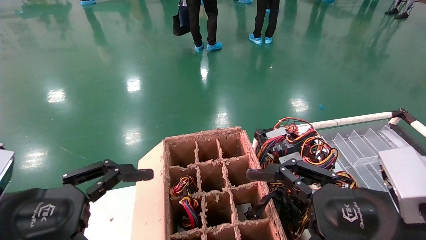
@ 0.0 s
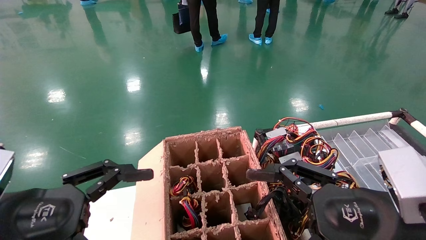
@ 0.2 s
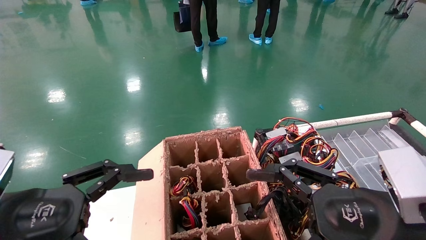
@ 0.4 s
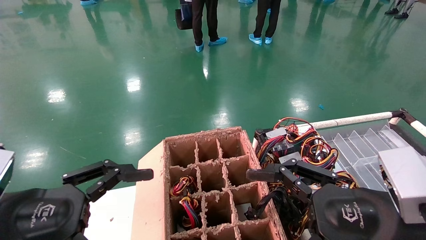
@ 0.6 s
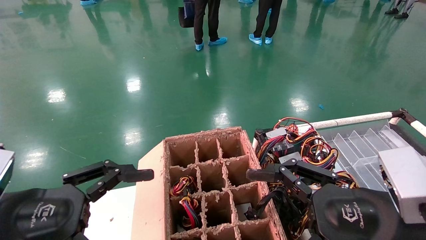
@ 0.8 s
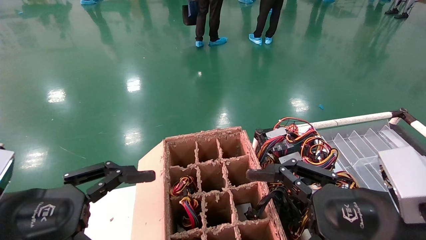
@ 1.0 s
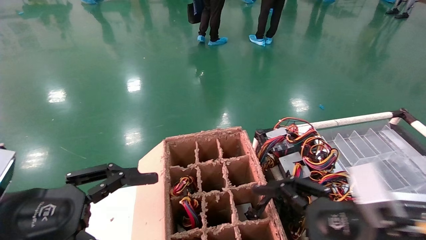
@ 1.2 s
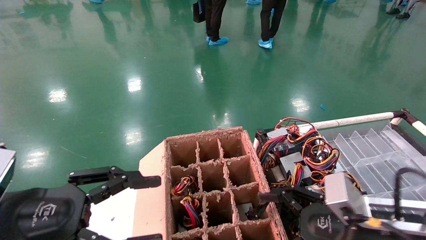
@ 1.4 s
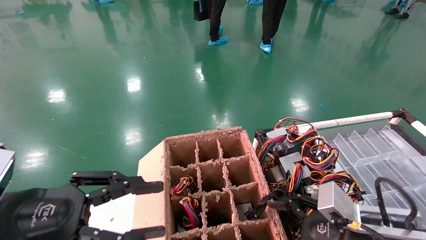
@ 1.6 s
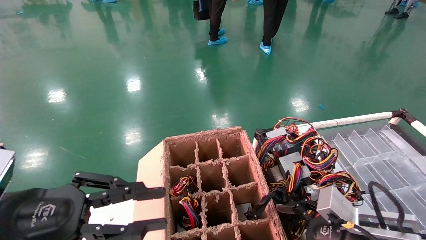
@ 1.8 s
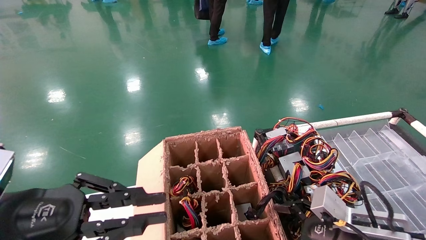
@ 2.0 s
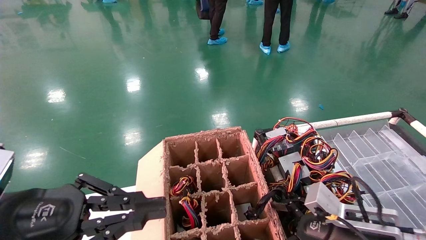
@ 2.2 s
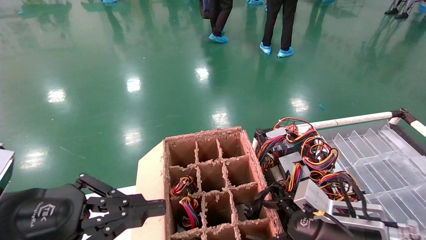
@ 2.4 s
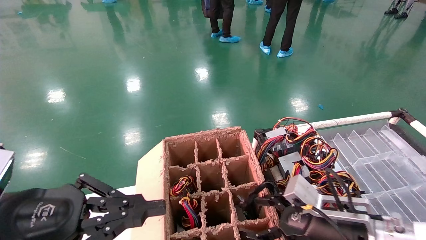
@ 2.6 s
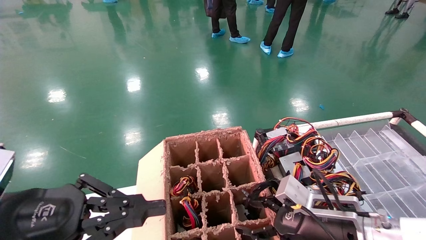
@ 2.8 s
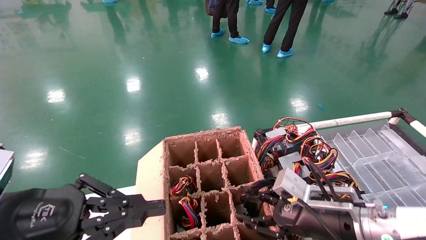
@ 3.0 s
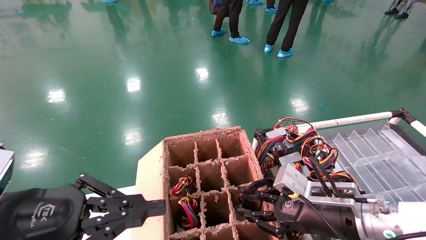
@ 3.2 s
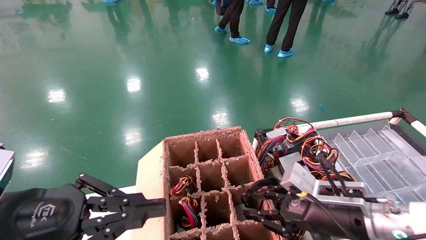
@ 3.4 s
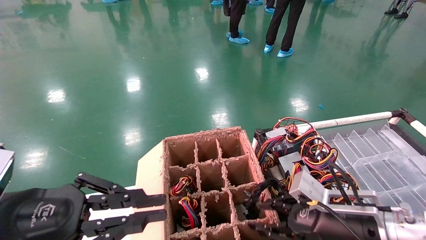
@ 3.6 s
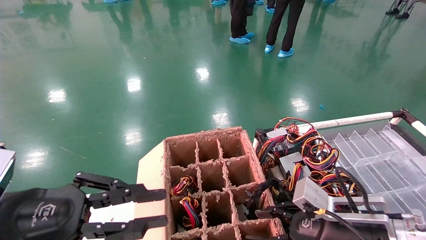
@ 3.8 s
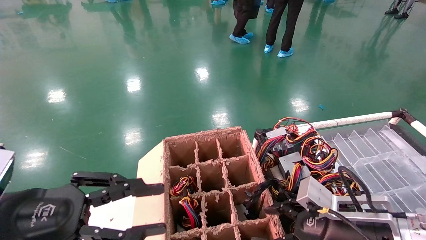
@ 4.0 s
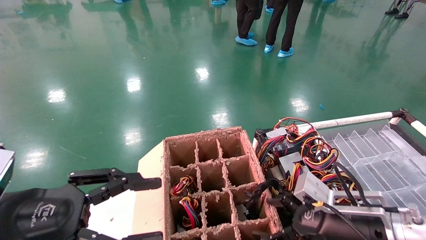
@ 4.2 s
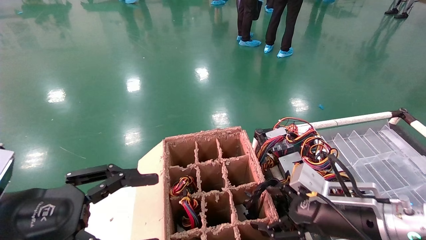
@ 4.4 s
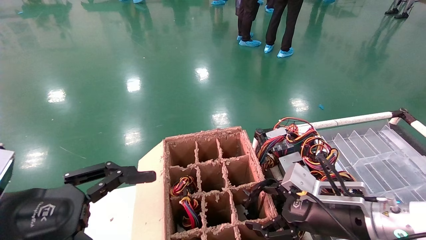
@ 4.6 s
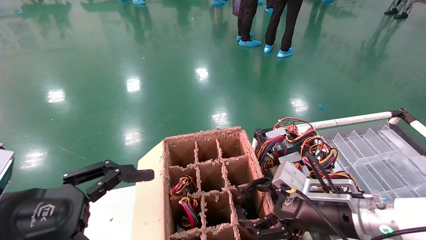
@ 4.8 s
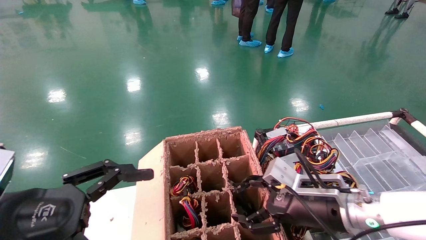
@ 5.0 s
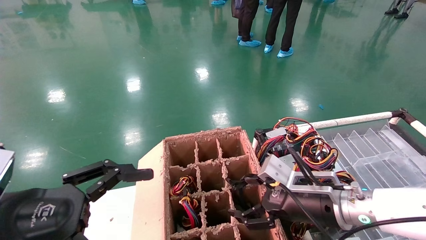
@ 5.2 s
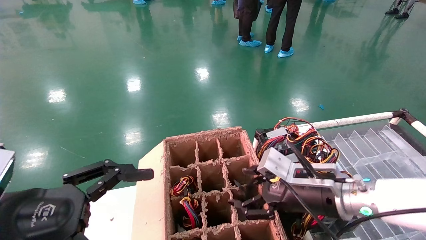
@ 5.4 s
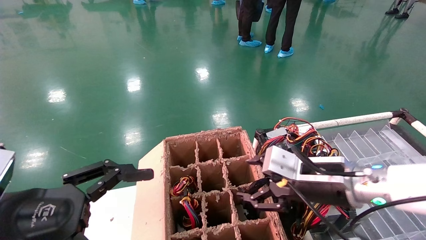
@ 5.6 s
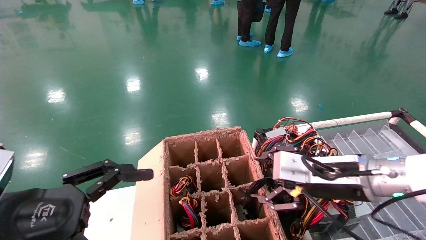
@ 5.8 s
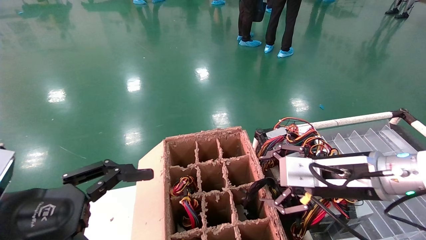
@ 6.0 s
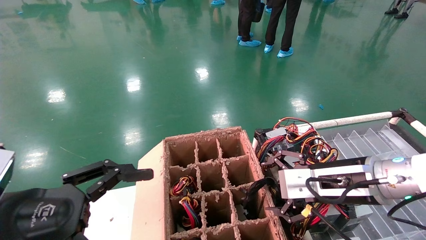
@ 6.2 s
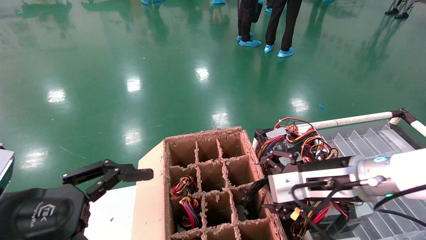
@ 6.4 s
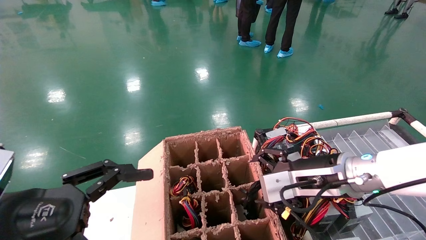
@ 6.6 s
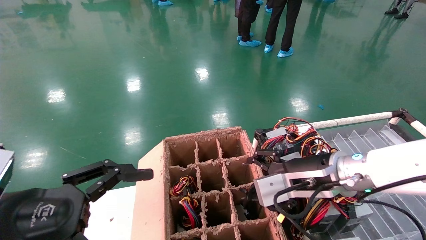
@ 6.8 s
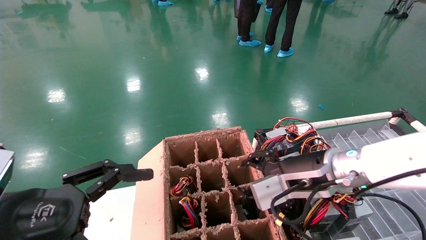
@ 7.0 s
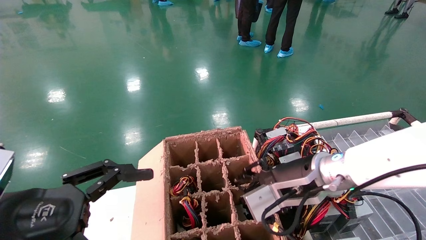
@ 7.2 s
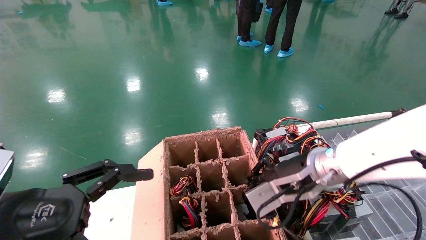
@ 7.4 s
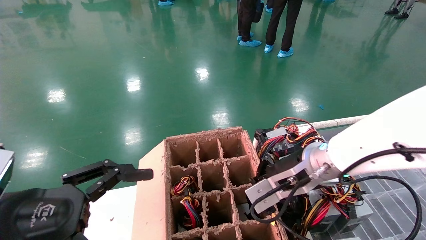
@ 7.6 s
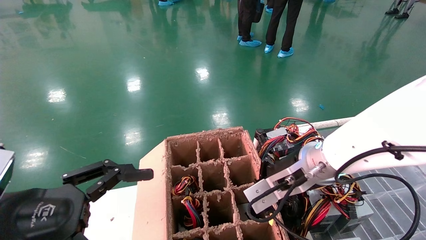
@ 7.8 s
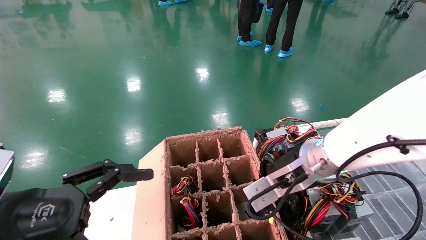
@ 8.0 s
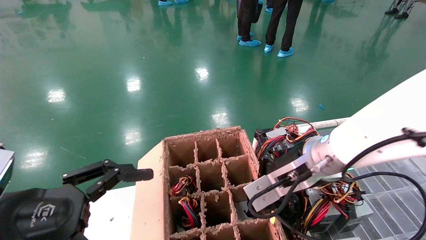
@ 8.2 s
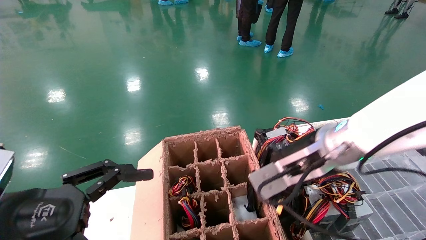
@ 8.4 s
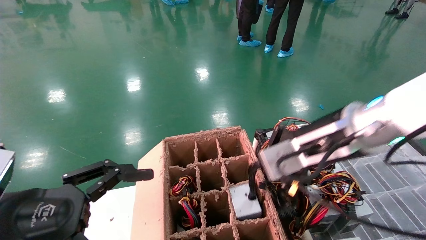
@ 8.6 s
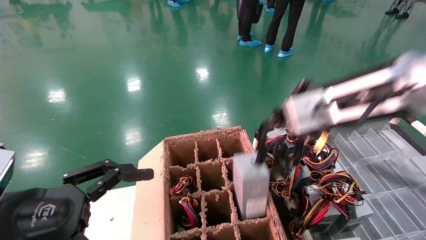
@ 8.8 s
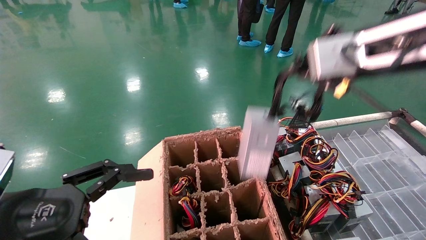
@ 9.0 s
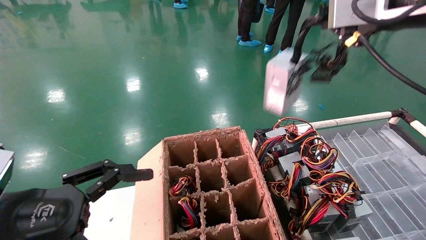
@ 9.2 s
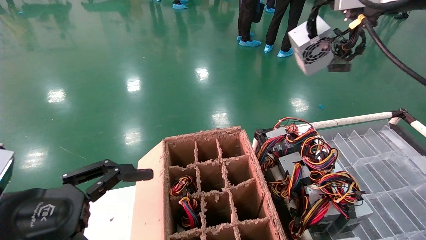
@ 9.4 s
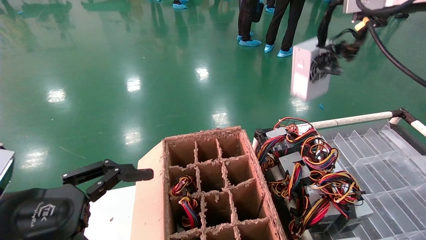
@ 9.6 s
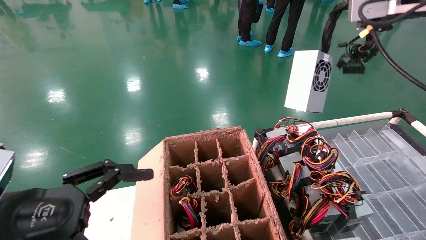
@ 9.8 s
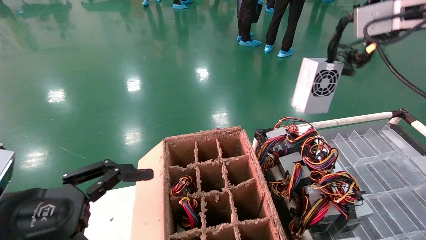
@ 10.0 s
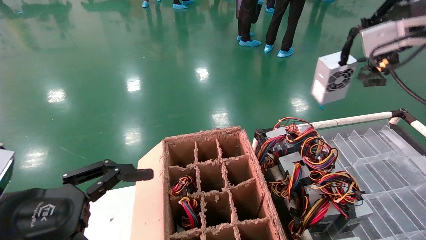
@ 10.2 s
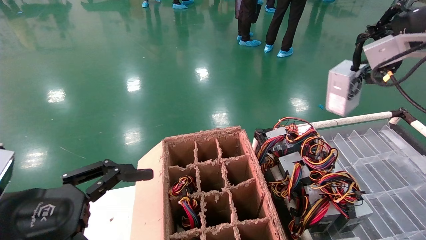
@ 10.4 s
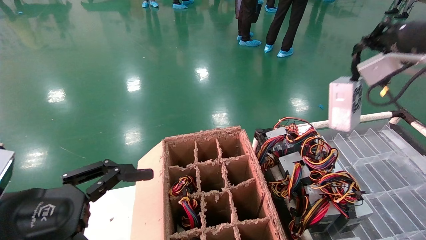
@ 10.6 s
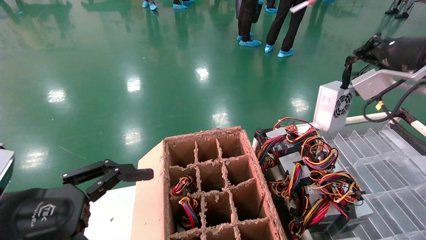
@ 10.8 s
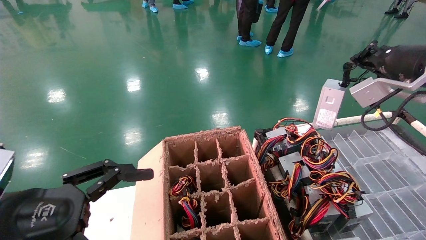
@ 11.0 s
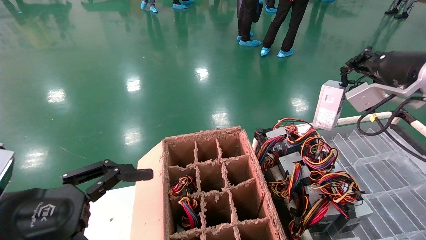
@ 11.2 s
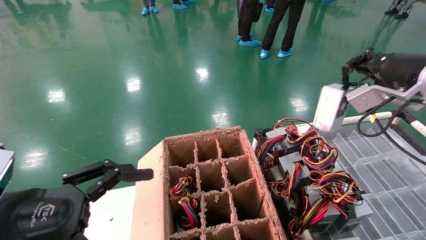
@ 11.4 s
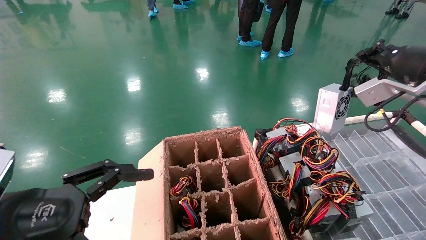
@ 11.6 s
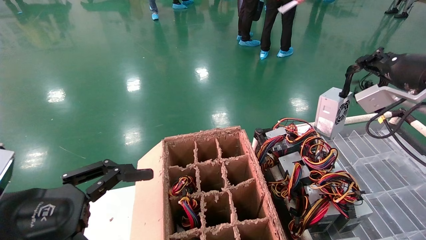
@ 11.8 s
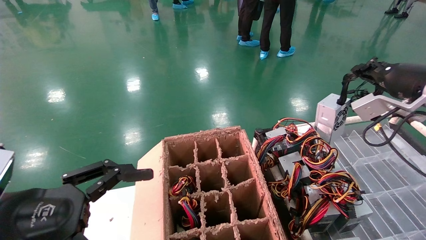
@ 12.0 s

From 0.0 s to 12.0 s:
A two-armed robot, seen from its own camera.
Step, from 1.2 s to 8.0 s: Grab and lift the power supply from the large box.
From 0.0 s to 1.6 s: The left gripper closes its fingers. The right gripper shifts approximately 10 cm downward and forward.
From 1.6 s to 3.0 s: The left gripper closes its fingers. Meanwhile the right gripper travels forward by roughly 5 cm, and closes its fingers.
From 3.0 s to 4.4 s: The left gripper opens its fingers.
From 4.4 s to 6.0 s: The right gripper heads upward, covering roughly 5 cm; the left gripper opens.
From 6.0 s to 7.6 s: The right gripper shifts roughly 5 cm to the left, and closes its fingers.
From 7.6 s to 9.0 s: The right gripper goes approximately 20 cm upward and to the right.
From 9.0 s to 10.4 s: The right gripper shifts some 15 cm to the right and forward.
From 10.4 s to 12.0 s: The right gripper travels downward by some 10 cm.

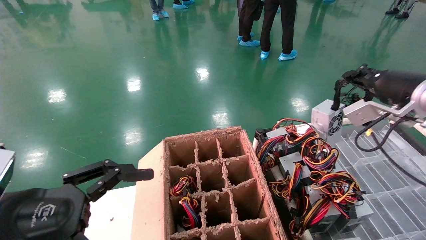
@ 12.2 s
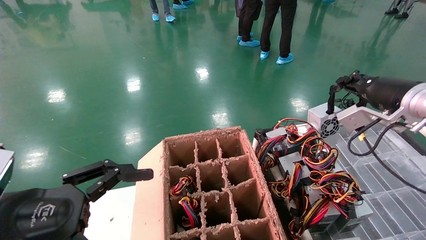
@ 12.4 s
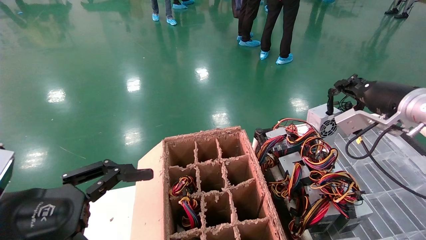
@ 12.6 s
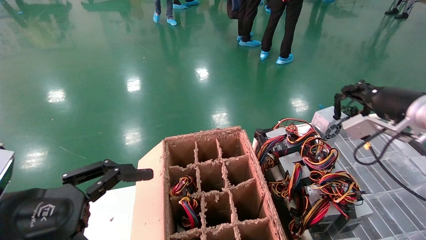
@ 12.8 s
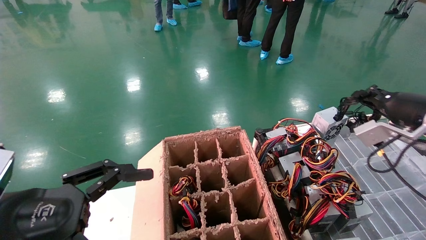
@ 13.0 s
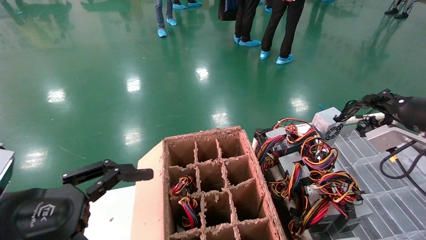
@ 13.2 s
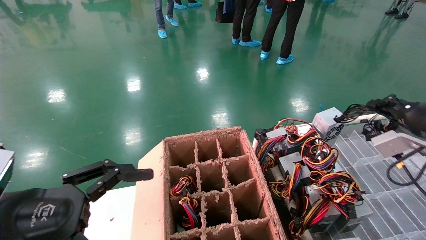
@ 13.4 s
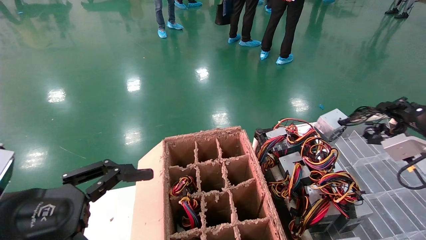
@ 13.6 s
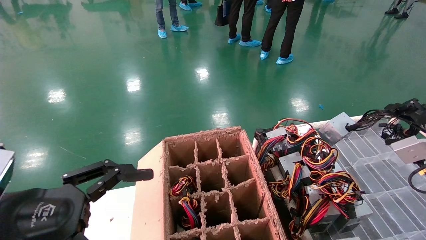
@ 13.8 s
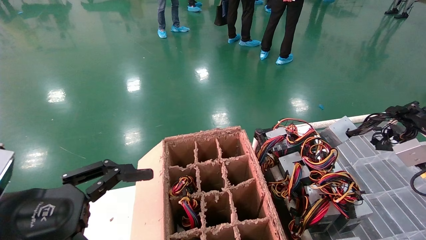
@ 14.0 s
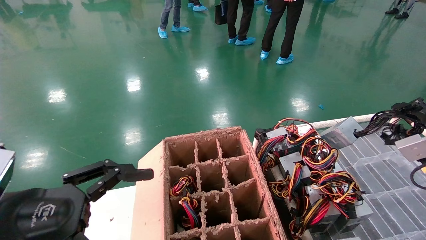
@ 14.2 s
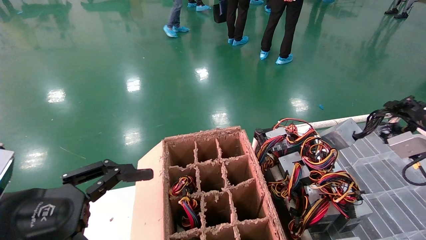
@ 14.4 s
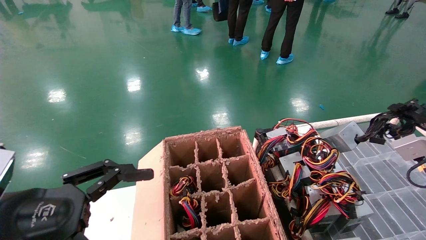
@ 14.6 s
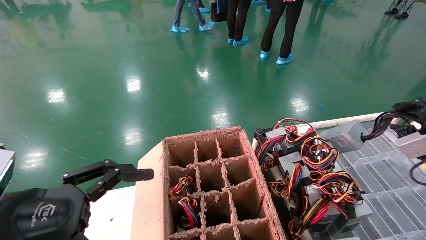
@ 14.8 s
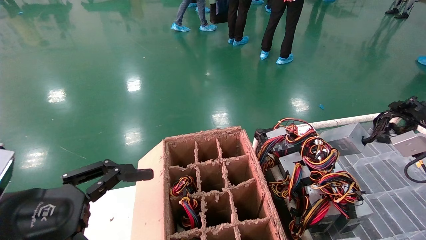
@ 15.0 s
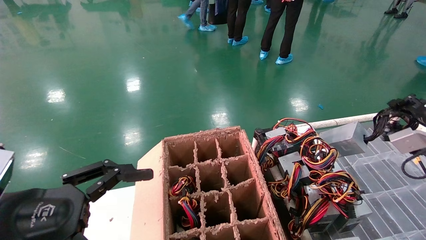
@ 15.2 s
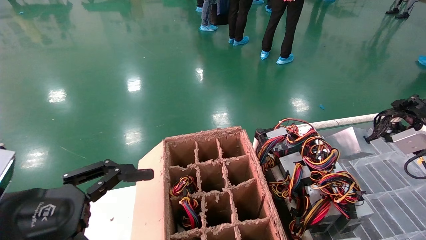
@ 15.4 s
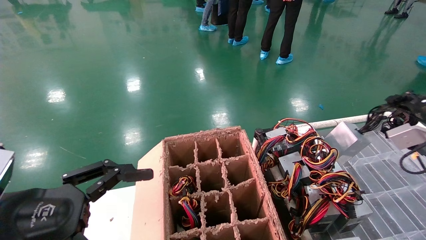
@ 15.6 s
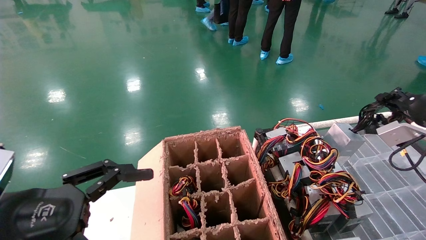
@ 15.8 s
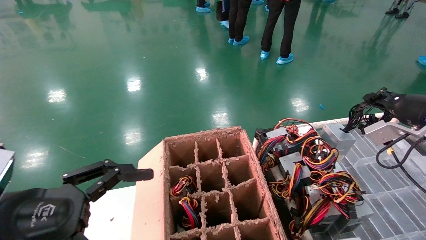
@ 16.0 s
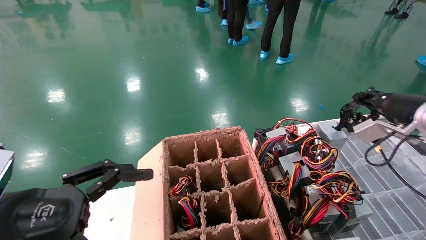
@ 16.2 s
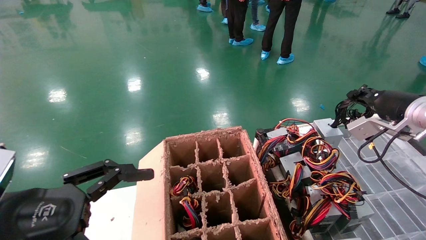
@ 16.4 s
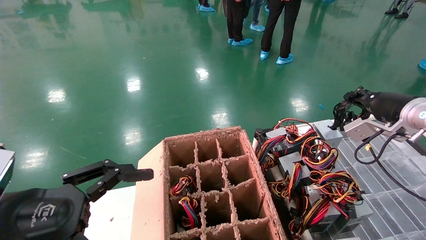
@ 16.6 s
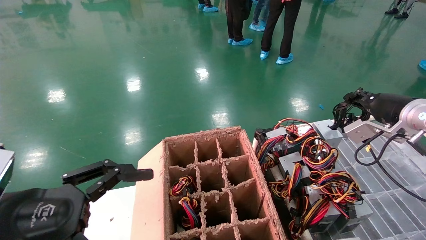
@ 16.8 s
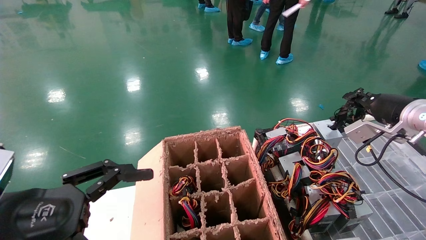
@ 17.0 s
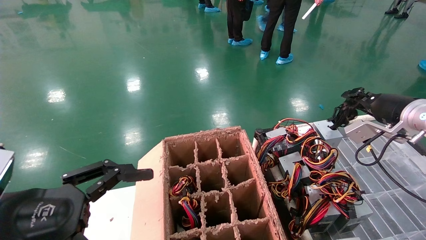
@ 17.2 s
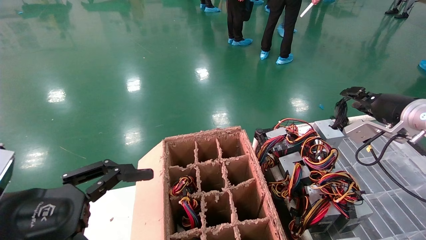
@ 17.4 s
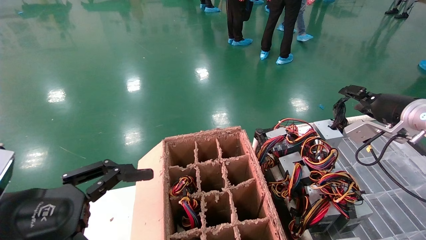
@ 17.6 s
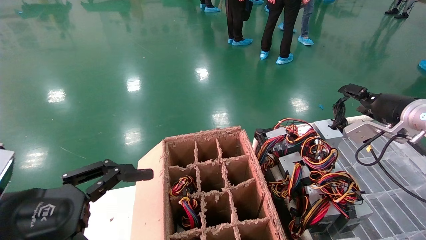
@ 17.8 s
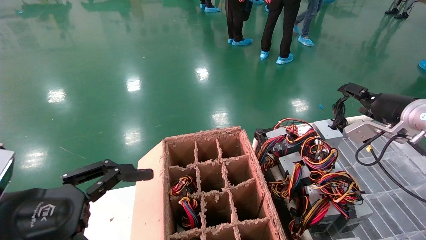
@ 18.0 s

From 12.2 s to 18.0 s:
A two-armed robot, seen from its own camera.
Step, from 12.2 s to 17.6 s: Place the power supply on the operating table.
From 12.2 s to 13.6 s: The right gripper shifts about 10 cm to the right and downward.
From 13.6 s to 15.0 s: The grippers move only a little.
From 15.0 s to 16.6 s: The right gripper shifts some 10 cm to the left and forward.
From 16.6 s to 18.0 s: The right gripper opens.
